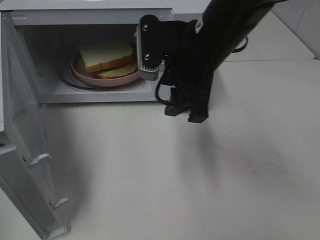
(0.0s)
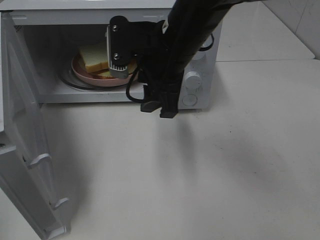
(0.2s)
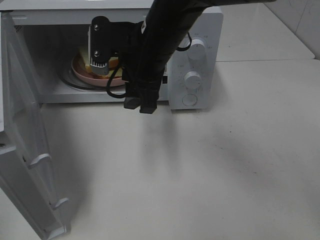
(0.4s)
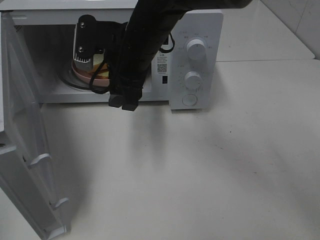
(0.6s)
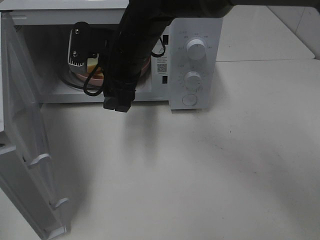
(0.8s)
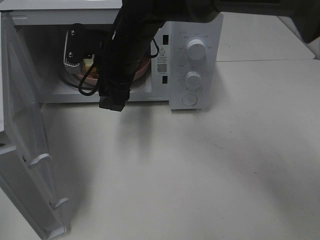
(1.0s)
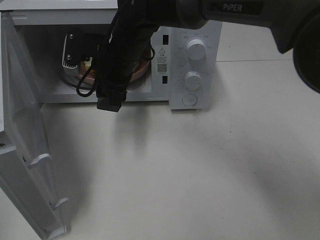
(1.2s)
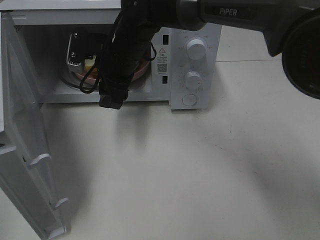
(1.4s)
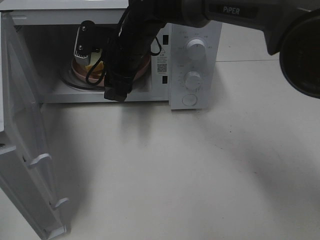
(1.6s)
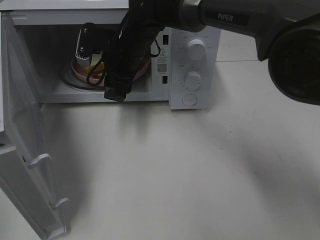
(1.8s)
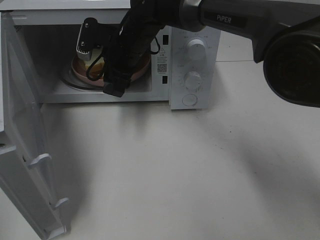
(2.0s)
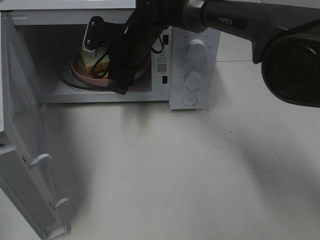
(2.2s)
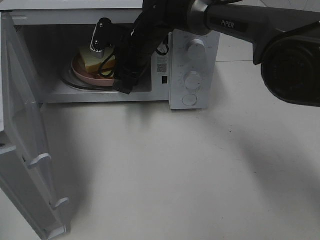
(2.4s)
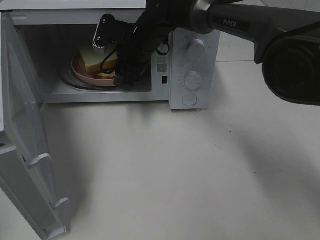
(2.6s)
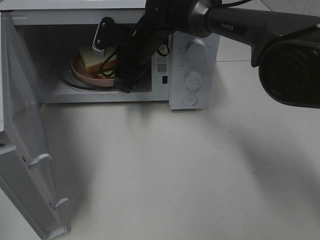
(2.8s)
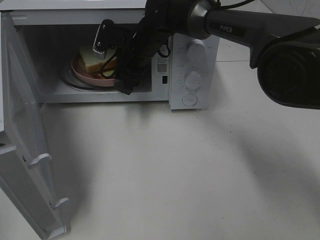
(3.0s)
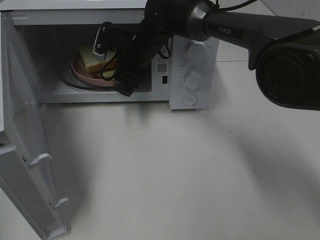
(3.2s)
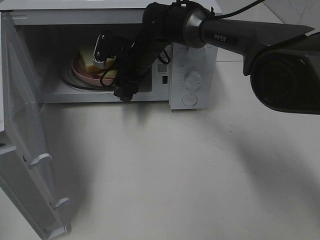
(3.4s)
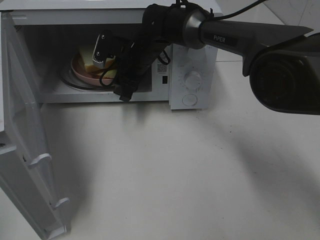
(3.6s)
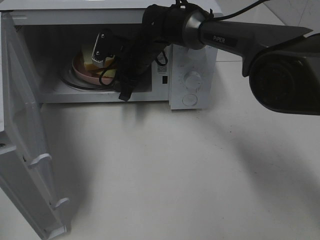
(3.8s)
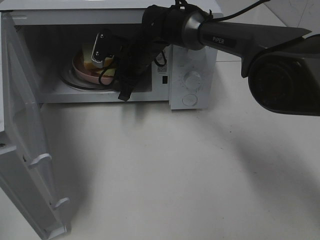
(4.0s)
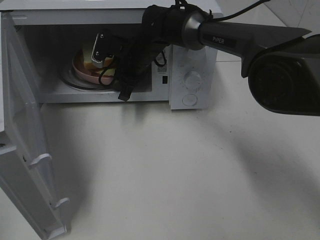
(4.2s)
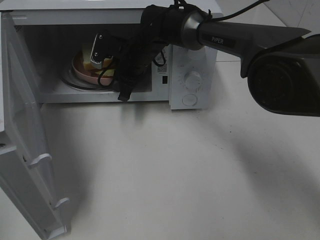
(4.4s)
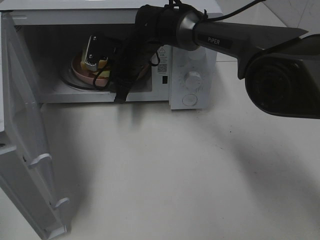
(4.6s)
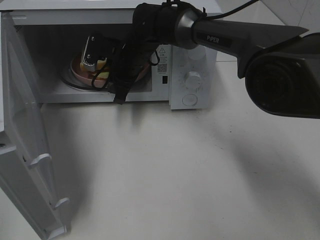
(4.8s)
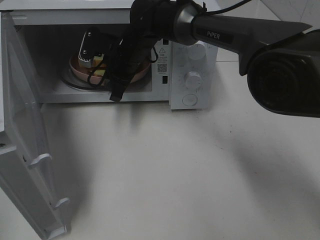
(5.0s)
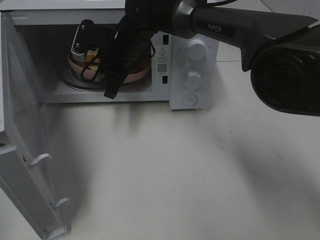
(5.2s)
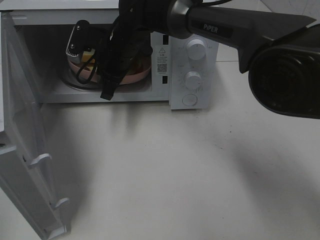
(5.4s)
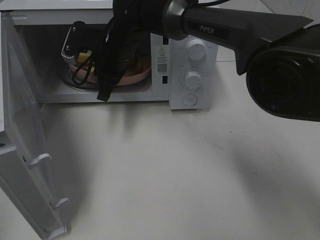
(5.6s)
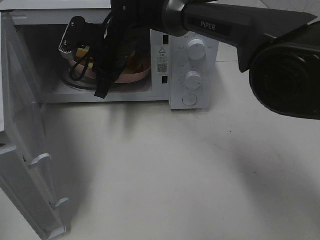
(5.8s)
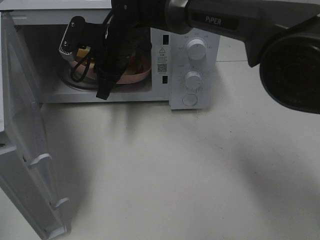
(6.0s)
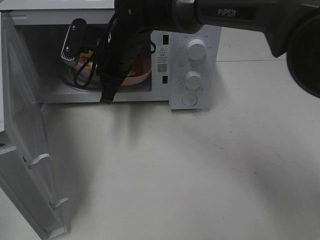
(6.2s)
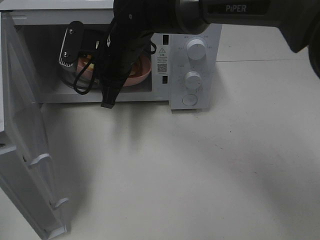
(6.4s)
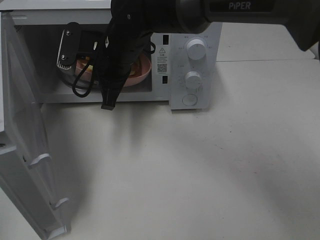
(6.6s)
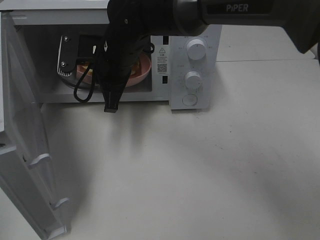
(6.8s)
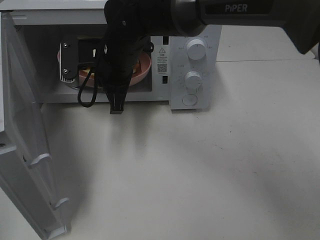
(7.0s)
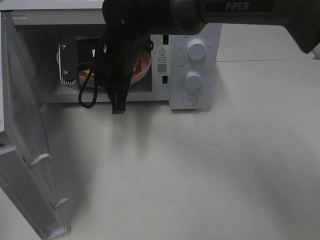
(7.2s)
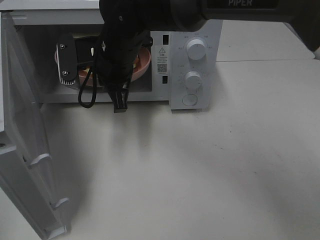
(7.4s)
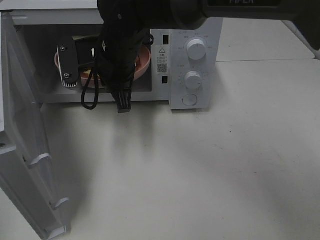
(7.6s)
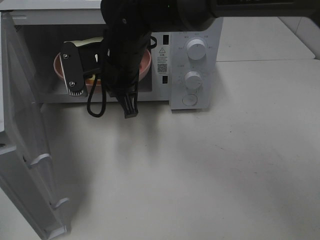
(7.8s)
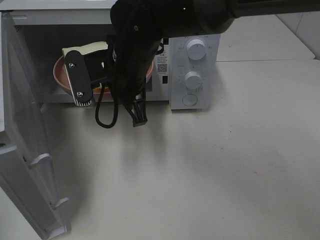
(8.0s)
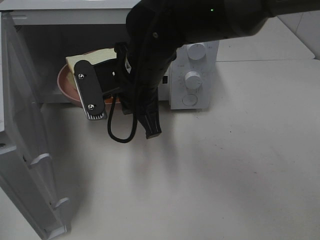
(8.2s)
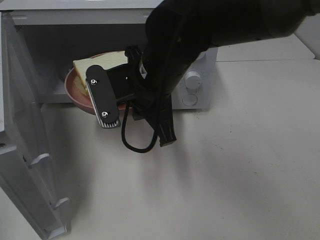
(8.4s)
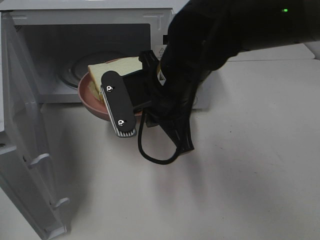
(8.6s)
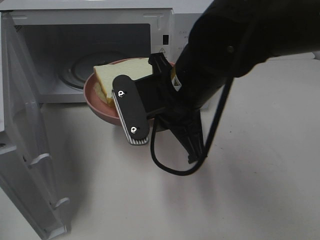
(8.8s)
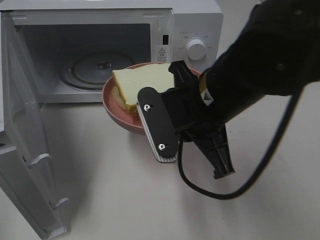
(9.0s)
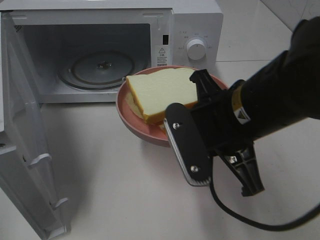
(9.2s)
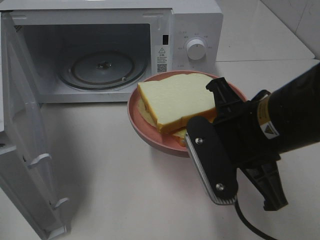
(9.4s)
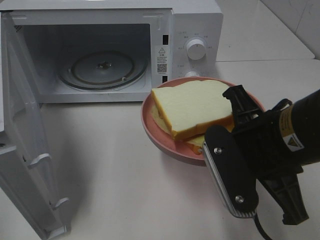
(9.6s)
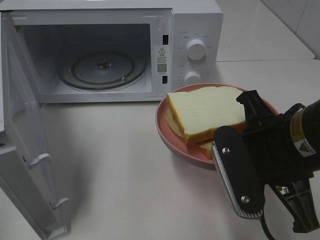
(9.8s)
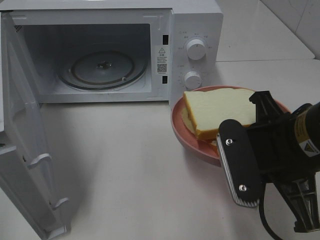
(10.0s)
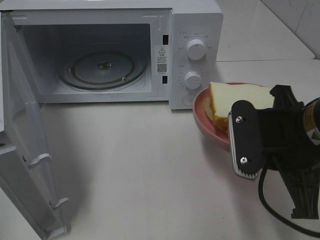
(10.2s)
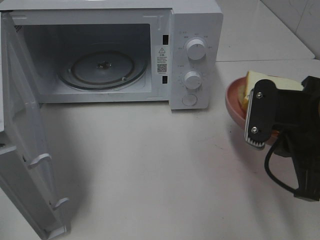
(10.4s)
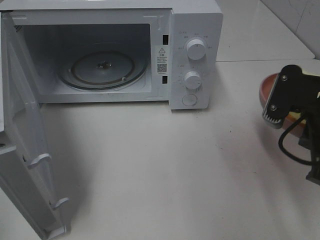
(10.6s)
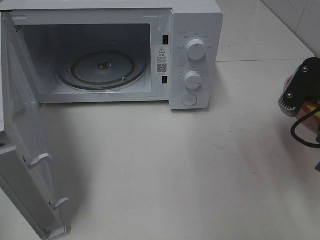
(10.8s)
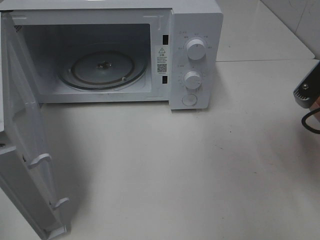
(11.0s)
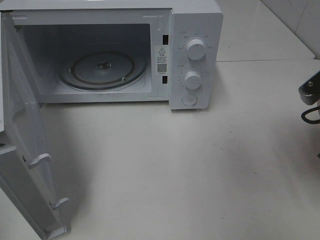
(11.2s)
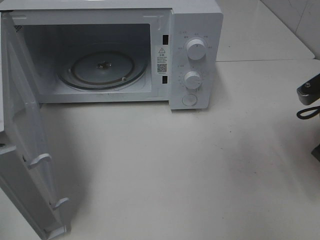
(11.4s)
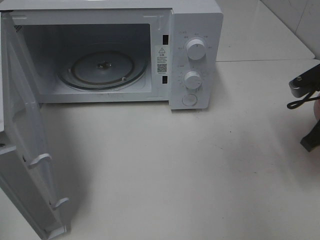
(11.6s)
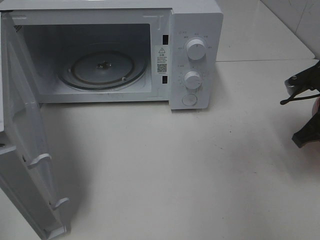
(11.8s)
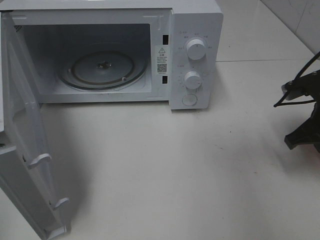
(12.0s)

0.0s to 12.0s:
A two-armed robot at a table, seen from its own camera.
Task of the whole recording: Heat Sandwich.
Step, 0.0s to 5.0s: Right hand: grab the plate with the sandwich.
0.0s to 1.6s: The right gripper moves forward, to the left and downward, roughly 15 cm.
1.6s to 3.0s: The right gripper shifts some 5 cm forward.
3.0s to 4.4s: The right gripper closes.
4.4s to 6.0s: The right gripper shifts roughly 5 cm backward and upward.
6.0s to 7.6s: The right gripper is displaced backward by approximately 5 cm.
7.6s to 9.0s: The right gripper moves backward and to the right, roughly 20 cm.
9.0s to 10.4s: The right gripper travels to the right by roughly 10 cm.
10.4s to 12.0s: The right gripper heads forward, to the right and downward, covering about 15 cm.

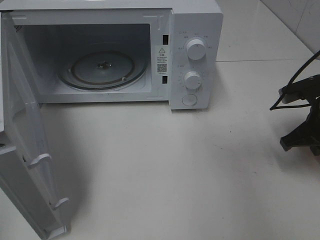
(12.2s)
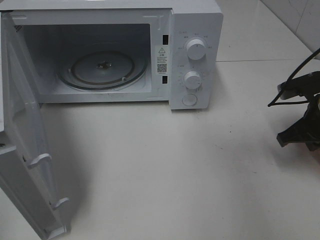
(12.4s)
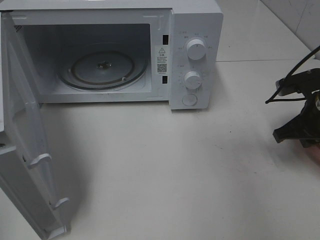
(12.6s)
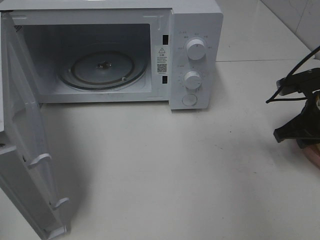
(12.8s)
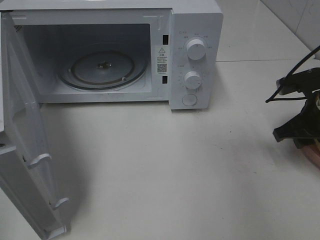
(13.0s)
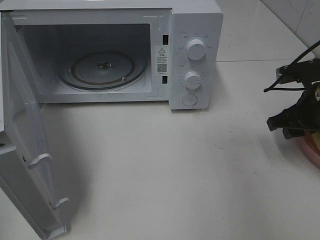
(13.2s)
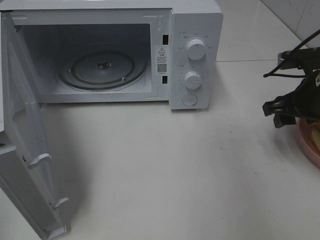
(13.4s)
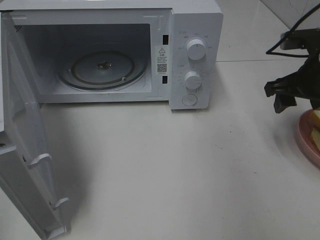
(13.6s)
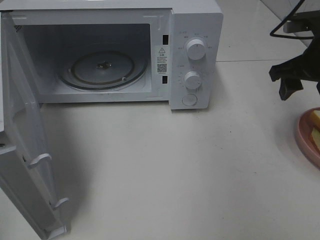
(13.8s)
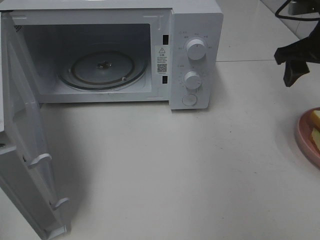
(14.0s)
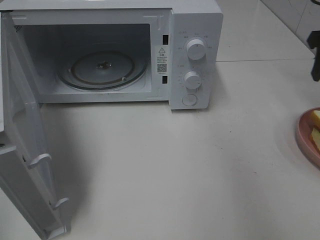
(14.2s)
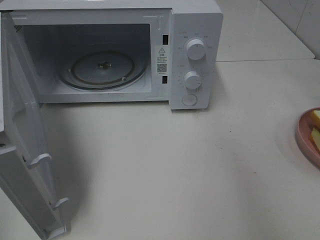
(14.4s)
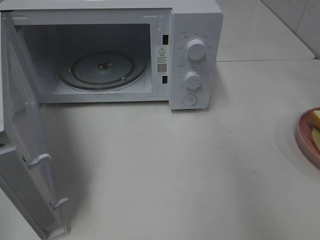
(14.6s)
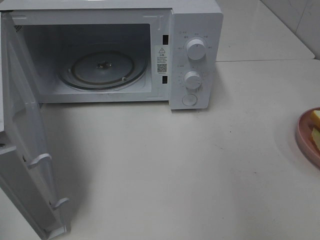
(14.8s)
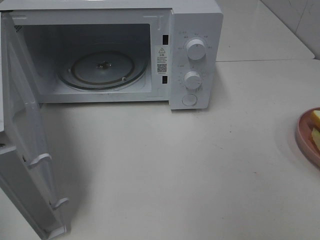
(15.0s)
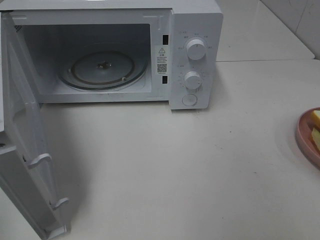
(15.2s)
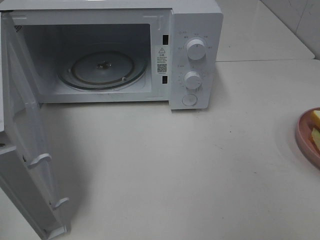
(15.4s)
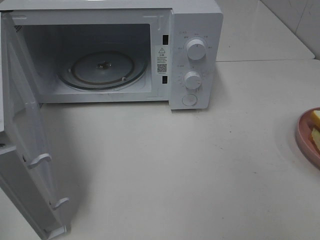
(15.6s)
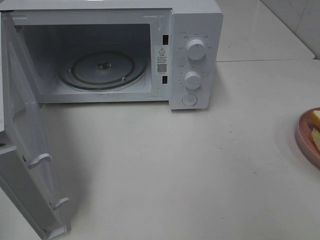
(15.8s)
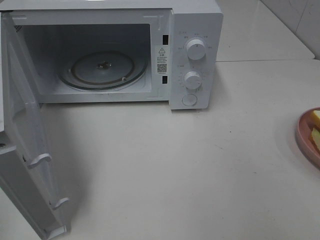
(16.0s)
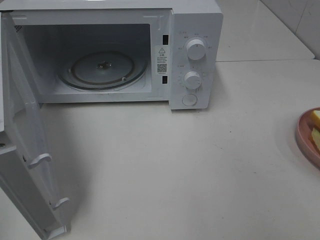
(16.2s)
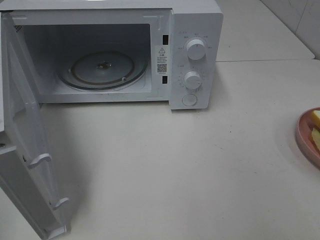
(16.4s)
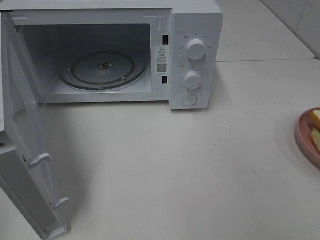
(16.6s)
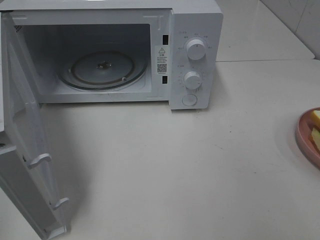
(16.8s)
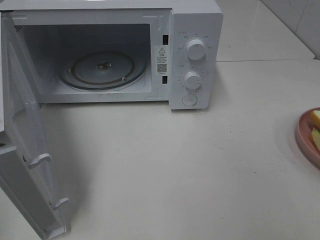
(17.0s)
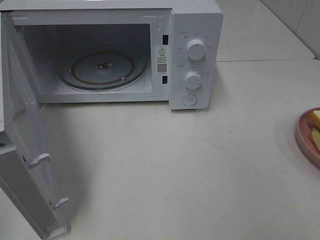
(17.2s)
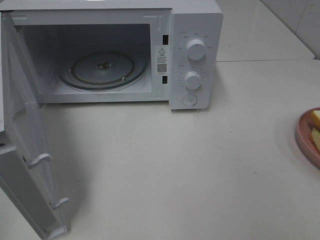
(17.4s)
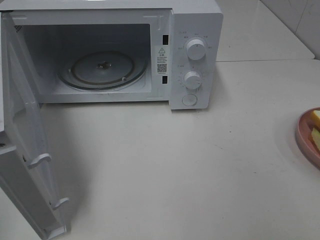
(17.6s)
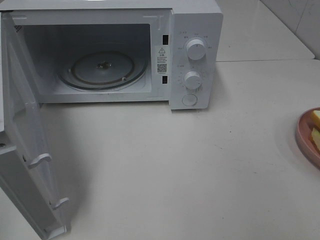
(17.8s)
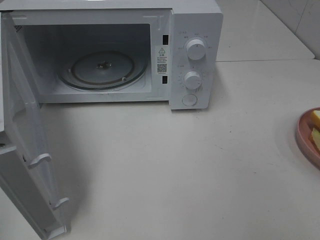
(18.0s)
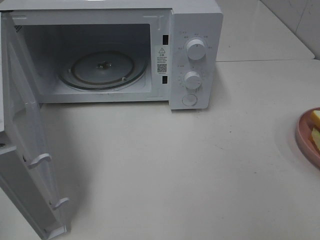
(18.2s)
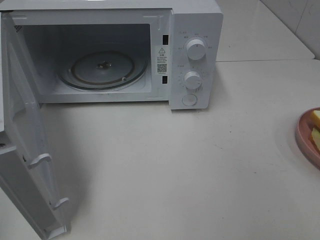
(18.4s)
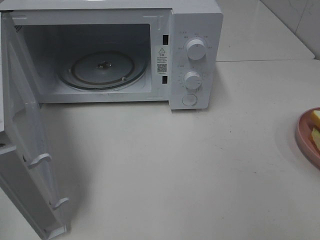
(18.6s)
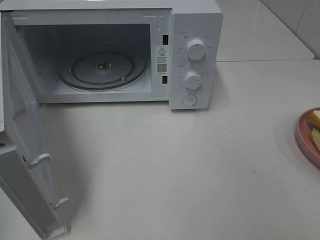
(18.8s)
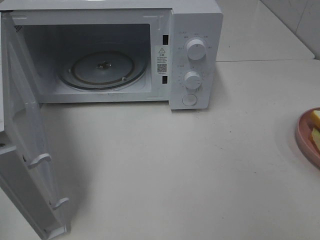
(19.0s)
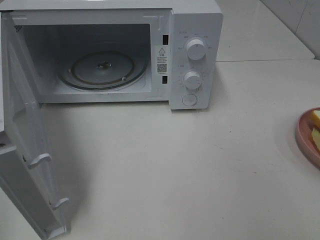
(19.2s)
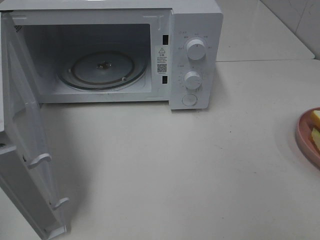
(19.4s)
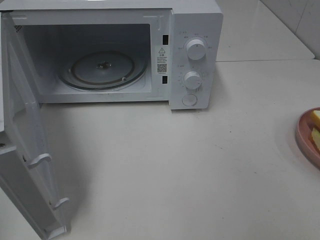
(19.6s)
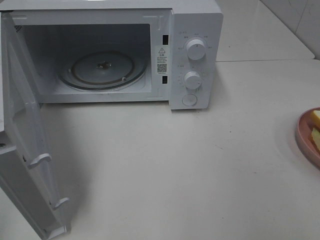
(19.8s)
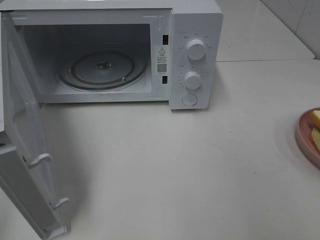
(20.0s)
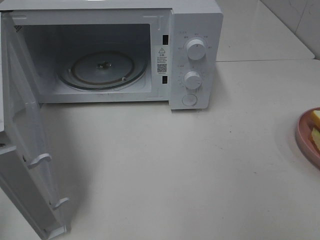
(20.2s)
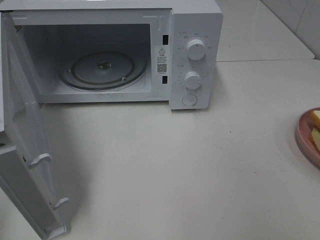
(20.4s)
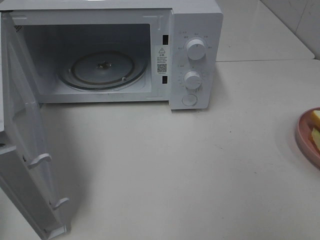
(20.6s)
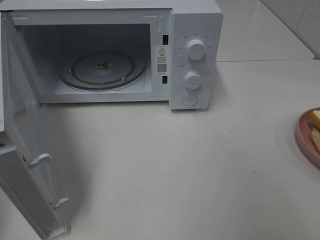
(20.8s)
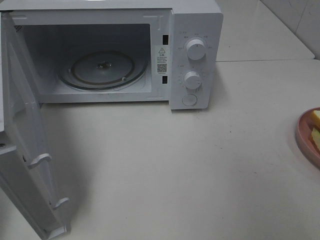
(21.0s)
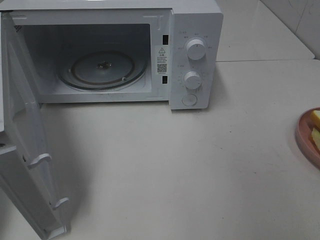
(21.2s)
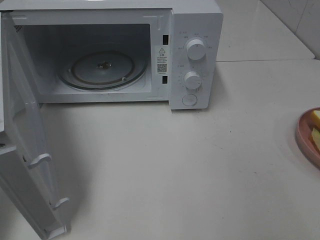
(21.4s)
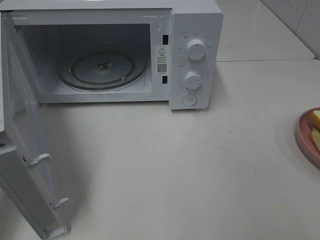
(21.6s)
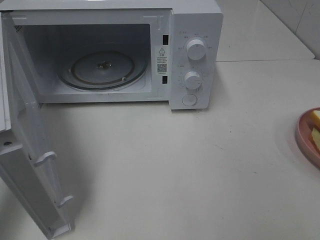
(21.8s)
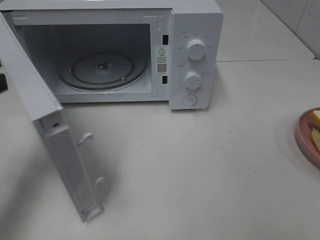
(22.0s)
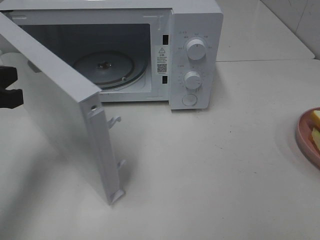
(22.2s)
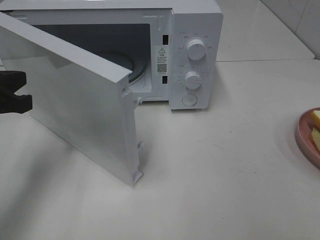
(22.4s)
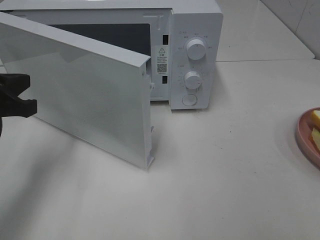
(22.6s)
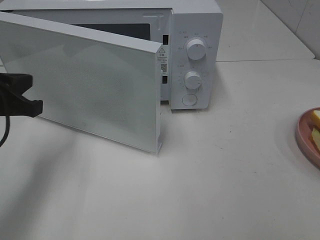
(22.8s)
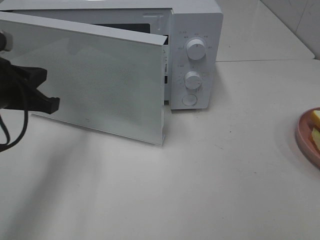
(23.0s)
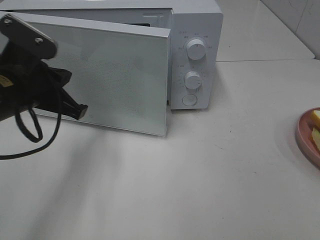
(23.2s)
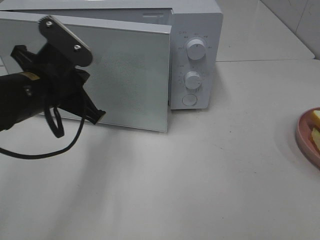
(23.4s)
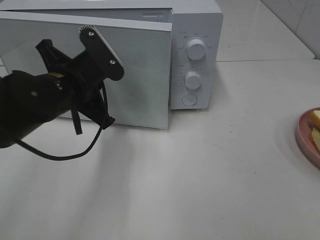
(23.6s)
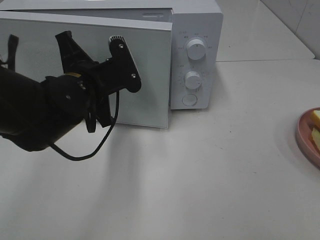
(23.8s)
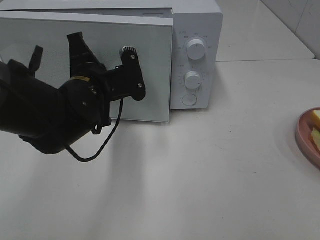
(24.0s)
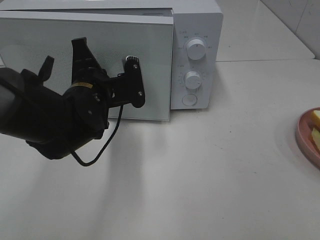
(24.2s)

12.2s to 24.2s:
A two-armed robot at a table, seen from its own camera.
Task of the whole recording: Heat Sandwich.
12.2s to 13.8s: The right gripper is displaced upward by about 10 cm, and opens.
13.8s to 15.2s: The right gripper moves backward, roughly 20 cm.
16.6s to 18.2s: Both grippers stay about where they are.
21.2s to 22.6s: The left gripper is displaced forward, downward and to the right by some 15 cm.
22.6s to 24.2s: The left gripper heads to the right and forward, covering roughly 15 cm.
